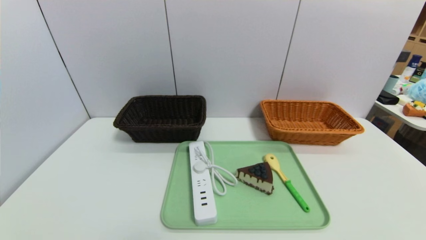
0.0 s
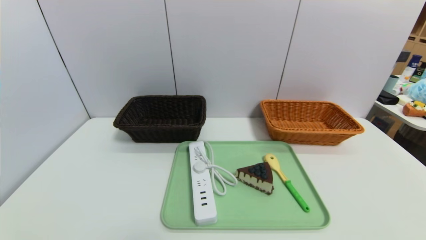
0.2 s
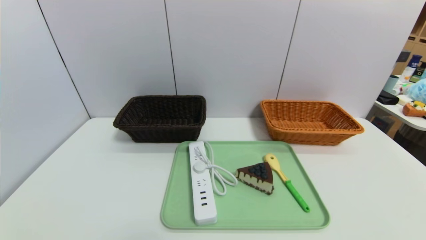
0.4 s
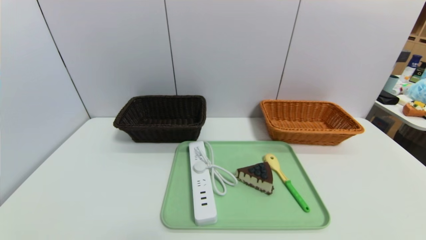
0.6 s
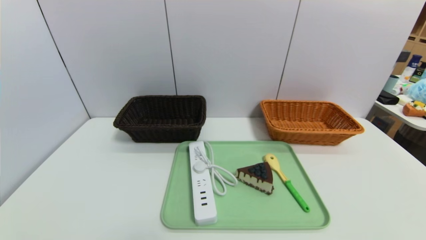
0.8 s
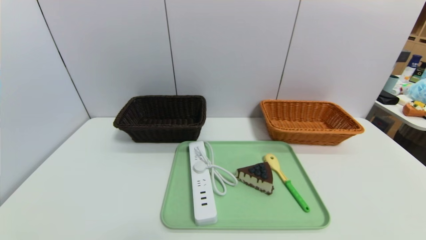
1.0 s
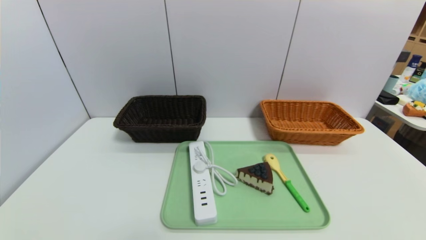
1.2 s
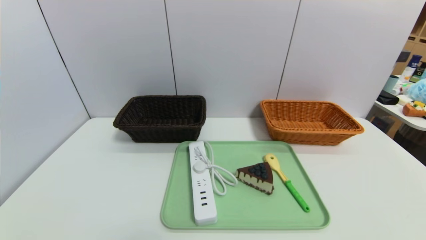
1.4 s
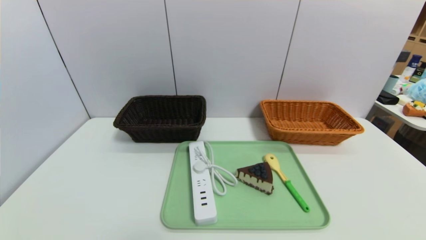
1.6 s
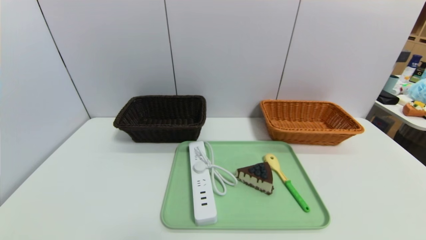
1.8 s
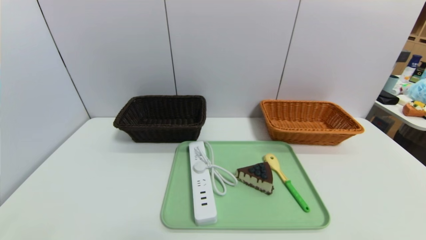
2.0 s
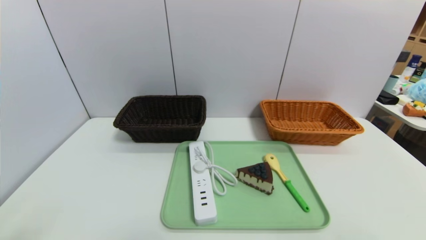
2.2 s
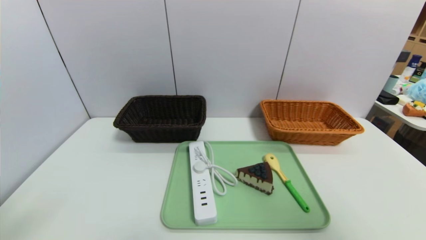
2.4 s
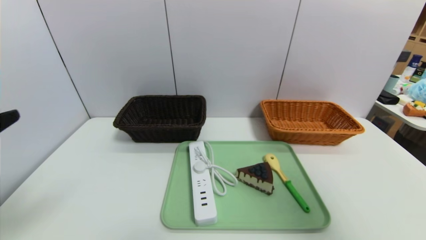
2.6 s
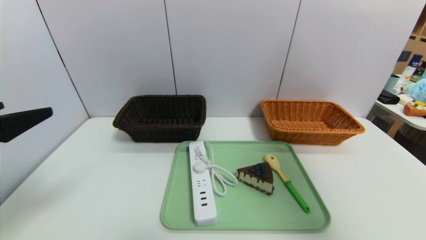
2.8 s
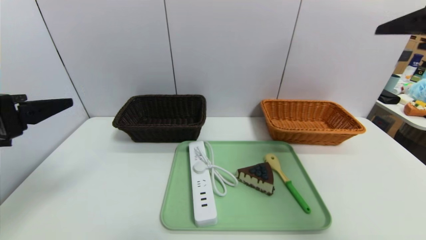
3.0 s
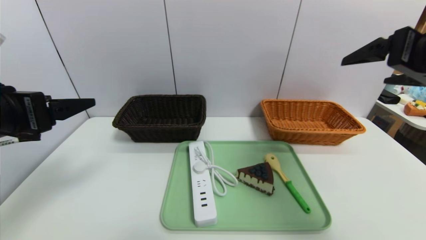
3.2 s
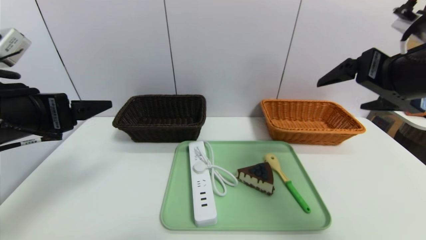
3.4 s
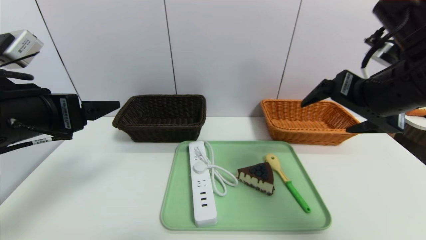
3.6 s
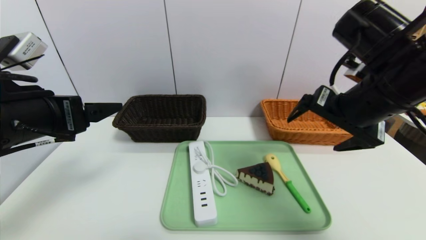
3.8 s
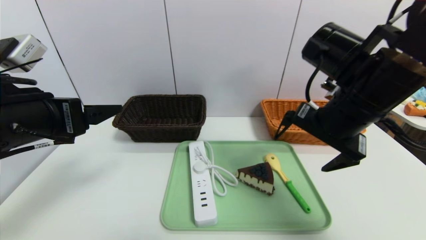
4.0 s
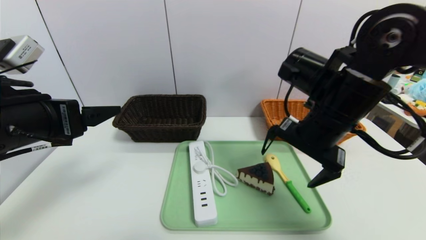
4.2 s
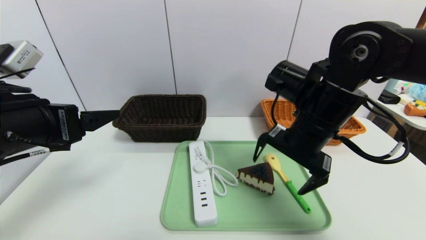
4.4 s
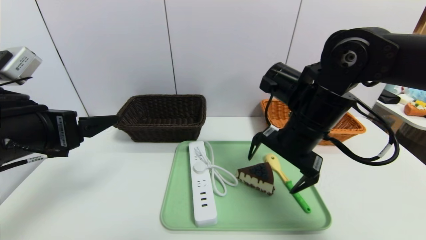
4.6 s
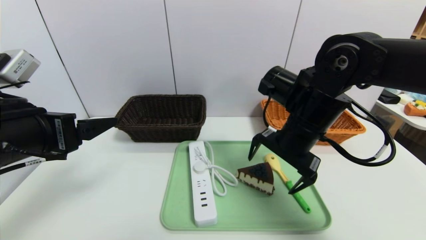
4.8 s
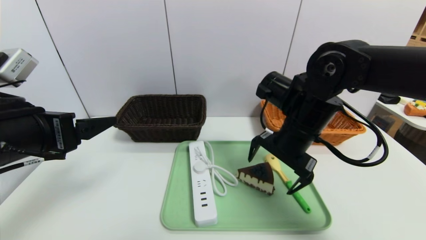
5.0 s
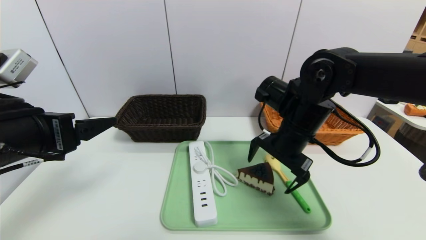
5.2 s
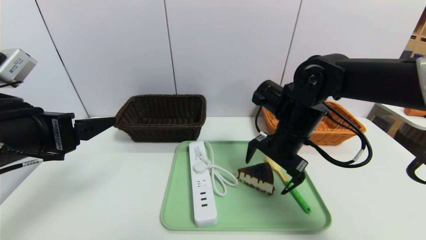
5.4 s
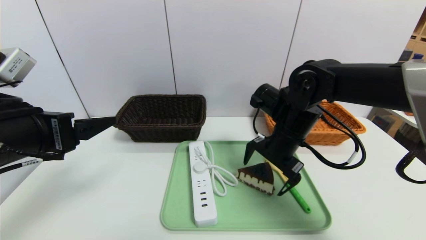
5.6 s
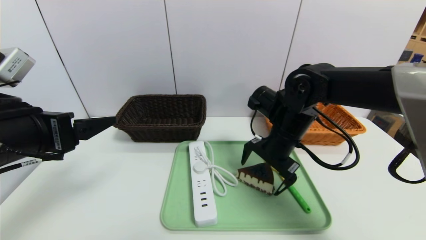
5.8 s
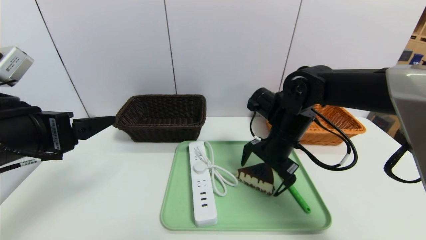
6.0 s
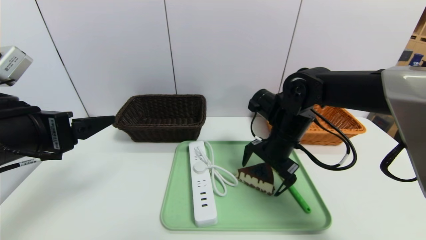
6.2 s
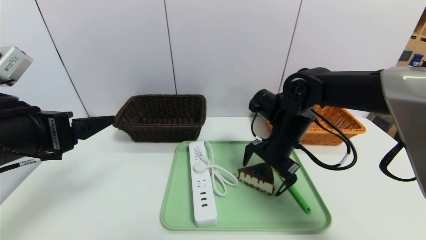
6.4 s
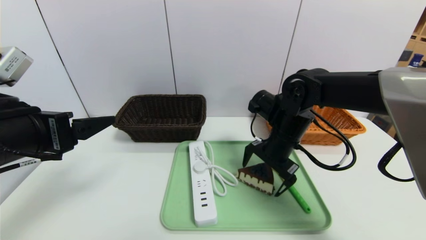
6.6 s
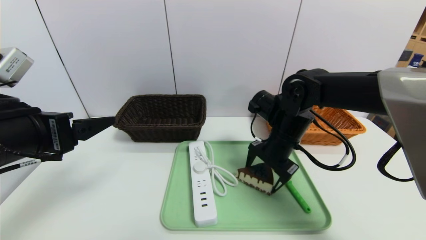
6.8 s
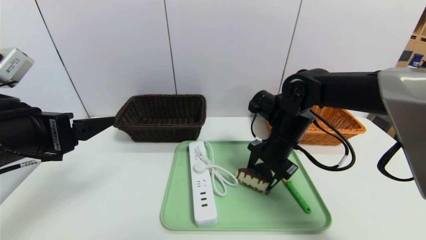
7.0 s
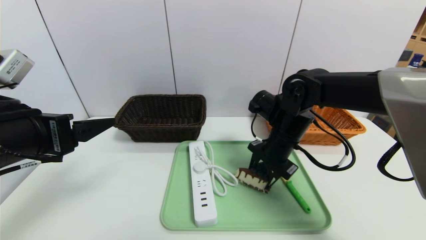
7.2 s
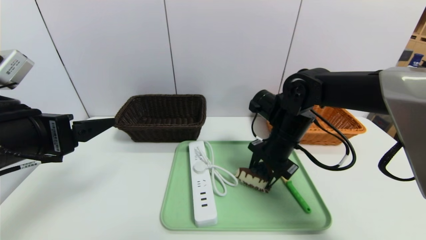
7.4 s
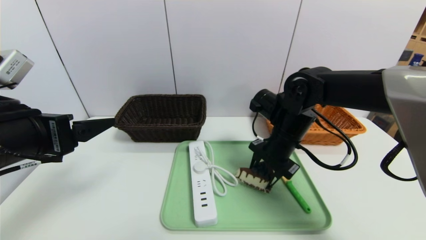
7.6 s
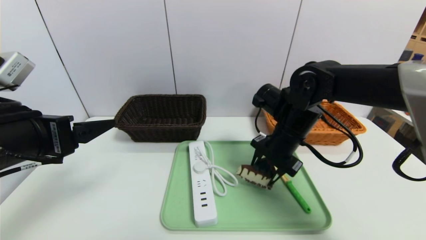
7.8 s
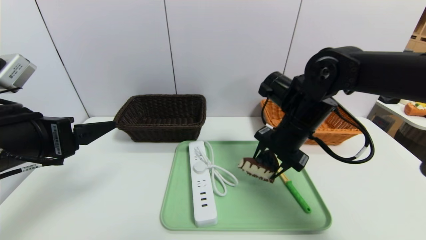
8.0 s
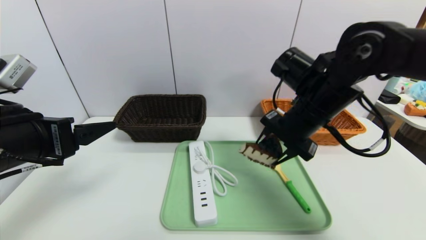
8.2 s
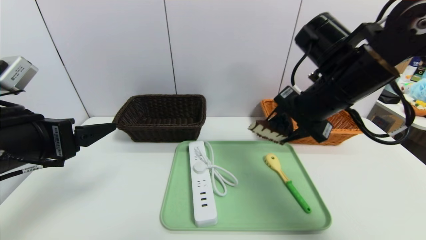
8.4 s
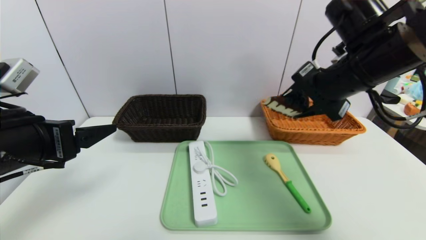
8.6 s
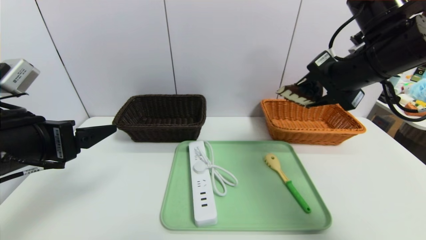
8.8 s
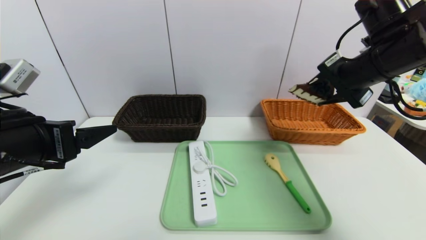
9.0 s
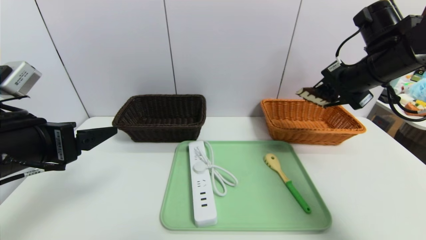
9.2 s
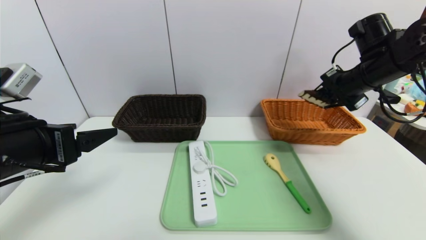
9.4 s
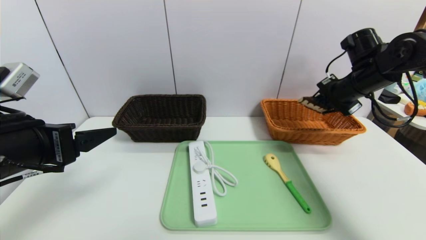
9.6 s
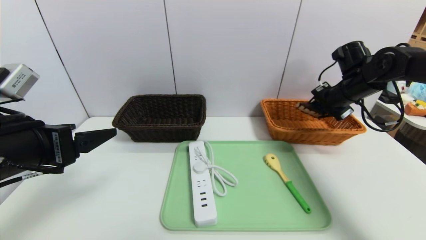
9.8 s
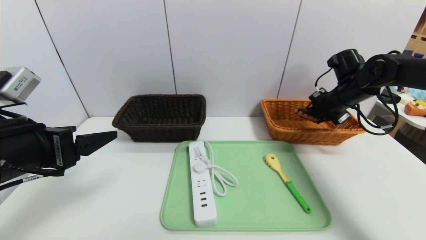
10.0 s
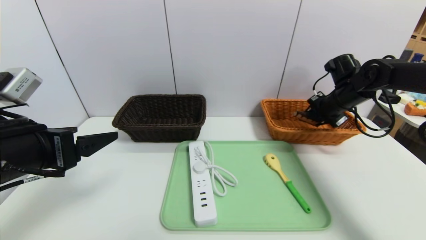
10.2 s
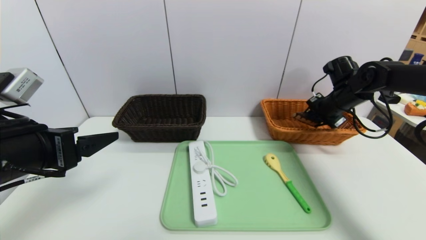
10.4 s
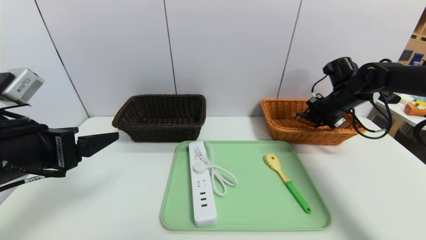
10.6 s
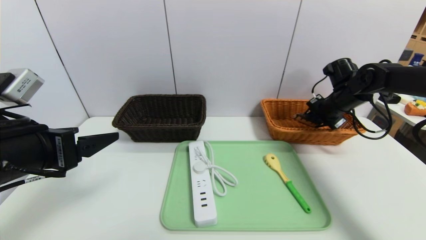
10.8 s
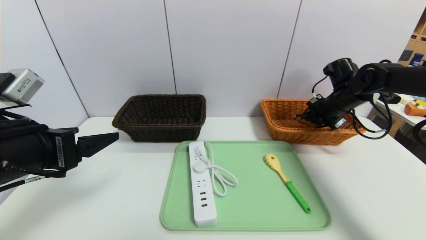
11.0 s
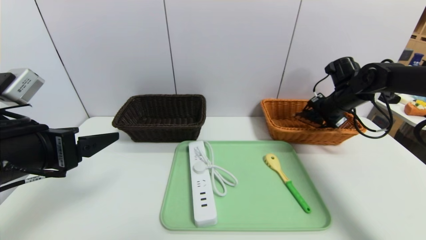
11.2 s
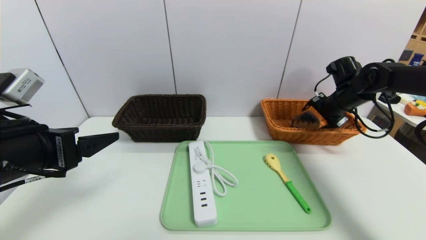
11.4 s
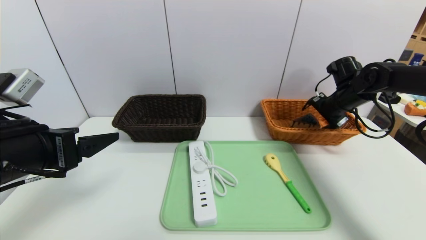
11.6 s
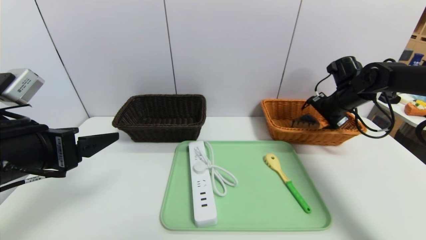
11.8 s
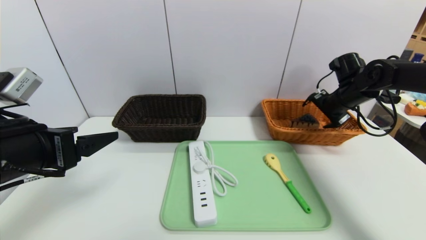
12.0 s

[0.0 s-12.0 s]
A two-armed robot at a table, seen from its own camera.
Task of the whole recording: place the food in the right basket with the right gripper, and place the non food items in the left basket with the left gripper.
Step, 0.0 to 11.6 s: Grasp the triangle cake and put it in the right basket.
1.6 to 3.0 s: The right gripper is displaced upward and forward by approximately 35 cm, while the left gripper shifts approximately 25 cm forward and upward.
3.0 to 4.4 s: The left gripper shifts by approximately 5 cm. The right gripper travels to the left, downward and forward by some 20 cm.
4.4 to 6.0 s: The right gripper travels downward and forward by approximately 10 cm.
6.0 to 7.6 s: The right gripper closes its fingers.
7.6 to 9.0 s: The right gripper travels upward and to the right by approximately 20 cm.
9.0 to 10.4 s: The right gripper moves downward, forward and to the right, about 20 cm.
10.4 to 12.0 s: The right gripper opens its fingers.

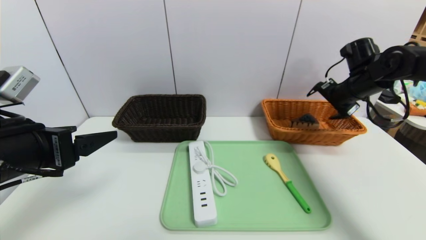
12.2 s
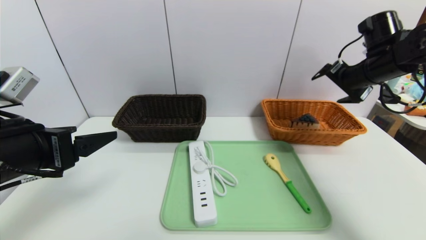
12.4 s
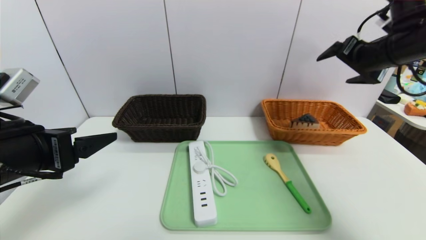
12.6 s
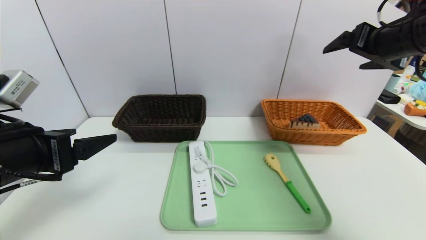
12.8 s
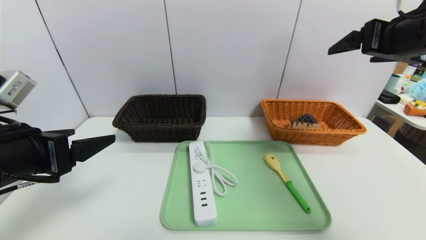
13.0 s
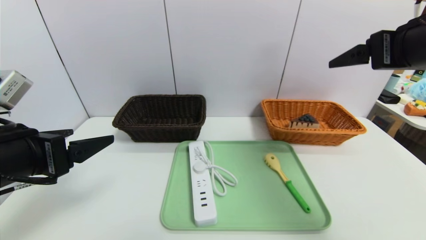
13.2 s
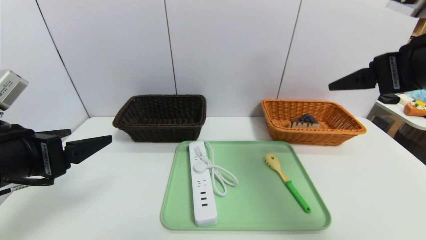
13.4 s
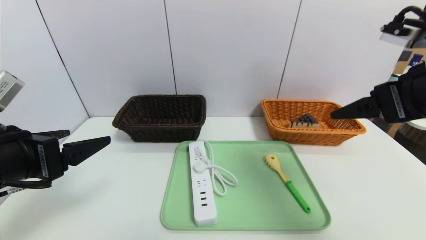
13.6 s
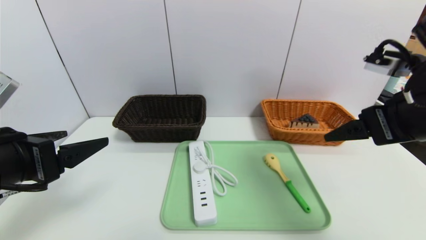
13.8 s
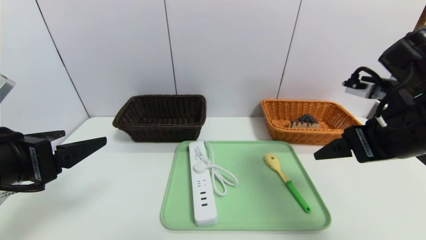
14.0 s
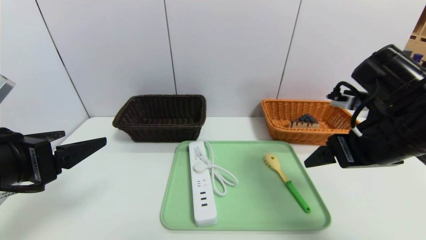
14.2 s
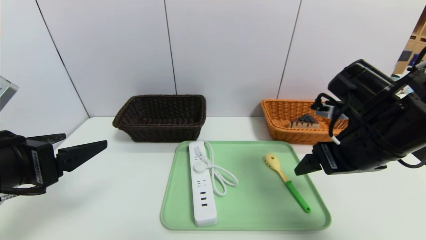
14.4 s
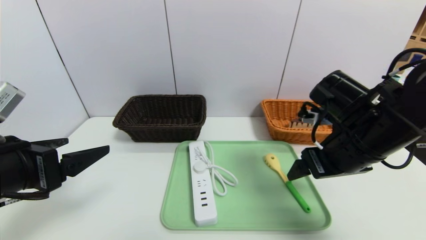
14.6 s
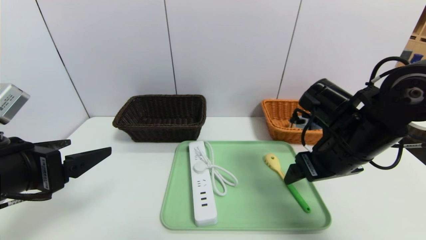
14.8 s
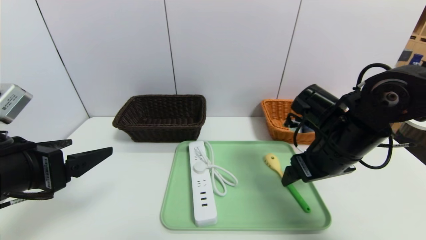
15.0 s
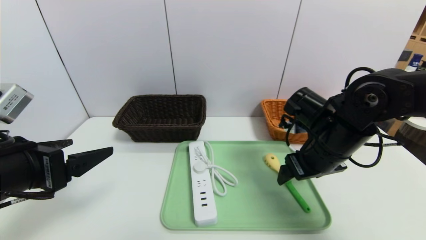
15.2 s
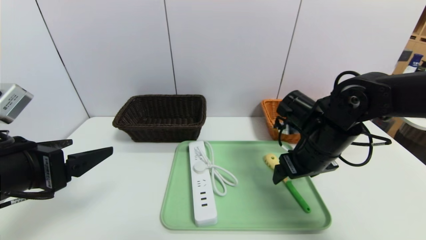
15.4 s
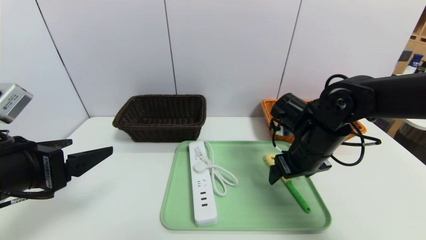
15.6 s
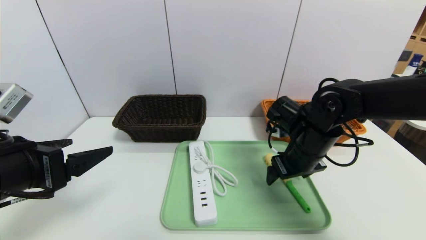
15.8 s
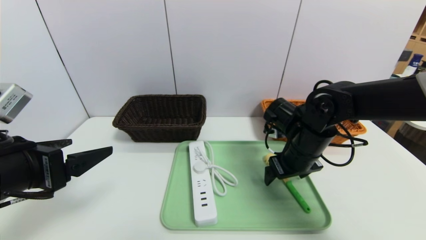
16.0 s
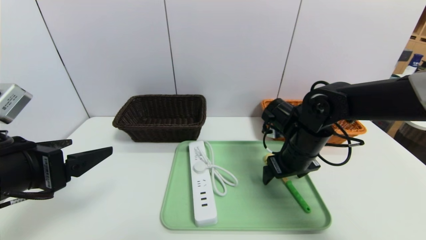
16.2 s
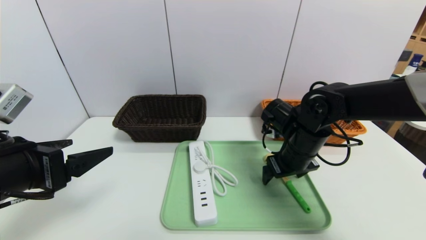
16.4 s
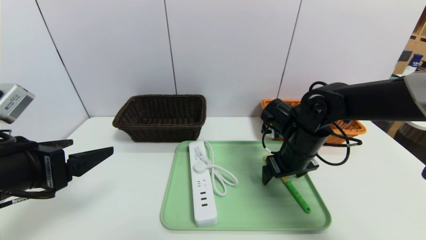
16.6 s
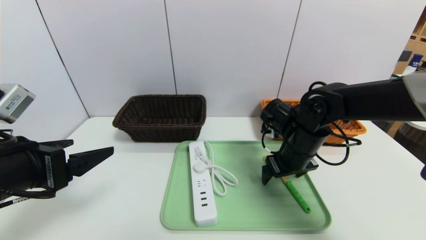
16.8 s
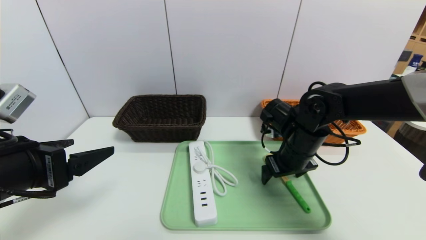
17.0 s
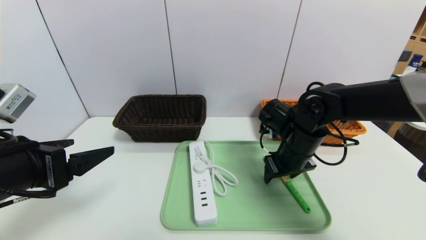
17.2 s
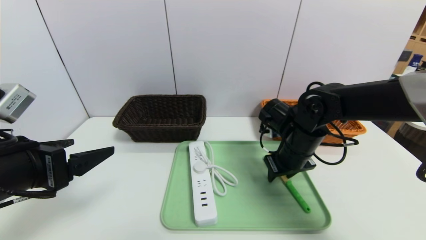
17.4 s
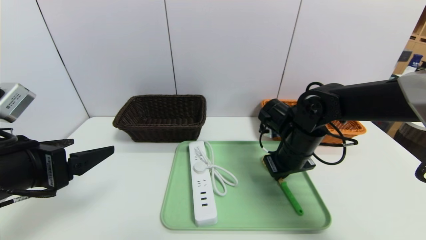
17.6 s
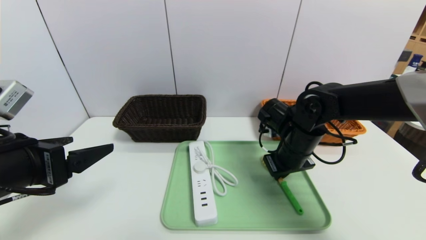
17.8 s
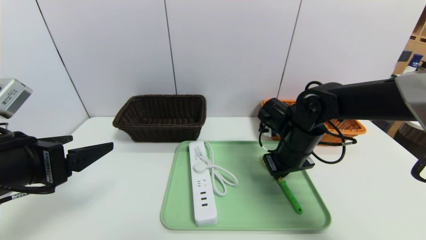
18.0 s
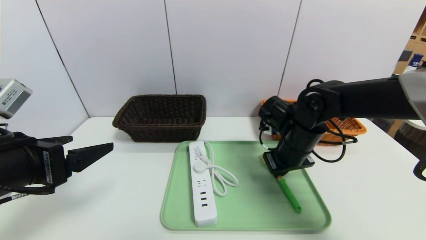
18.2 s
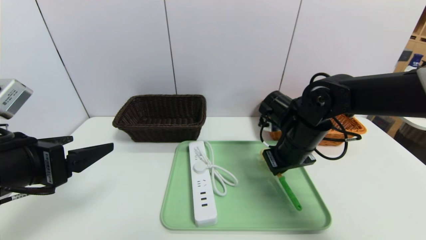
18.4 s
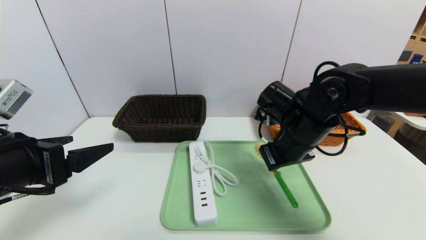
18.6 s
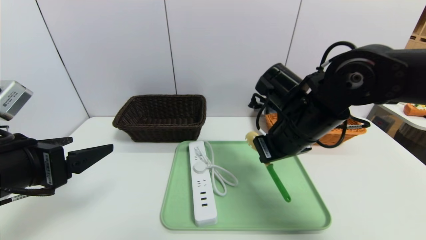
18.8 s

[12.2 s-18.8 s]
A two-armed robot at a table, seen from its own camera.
Task of the whole recording: place the food in the right basket with the right gripper, and place the non food items in the left basket with the left gripper.
12.2 to 13.8 s: The right gripper shifts about 20 cm backward.
13.8 to 15.4 s: The right gripper goes roughly 15 cm downward, forward and to the left.
15.4 to 17.2 s: The grippers move only a little.
17.2 to 18.8 s: The right gripper travels upward by some 10 cm, and closes.
